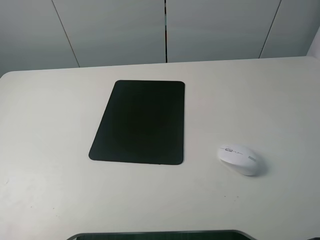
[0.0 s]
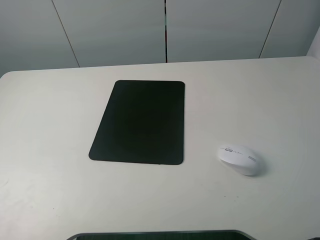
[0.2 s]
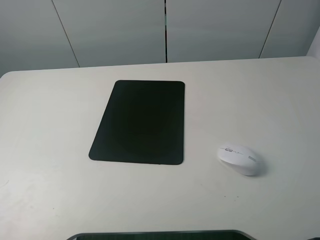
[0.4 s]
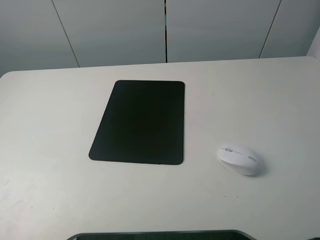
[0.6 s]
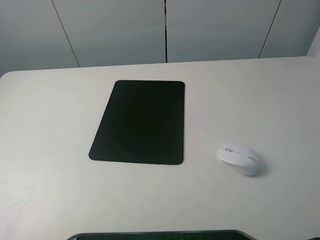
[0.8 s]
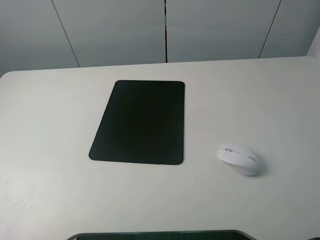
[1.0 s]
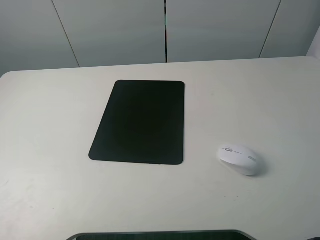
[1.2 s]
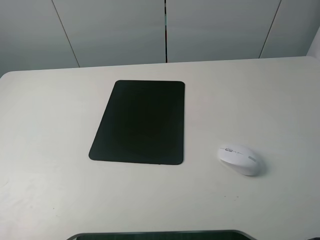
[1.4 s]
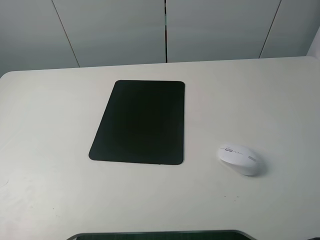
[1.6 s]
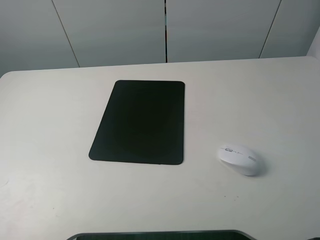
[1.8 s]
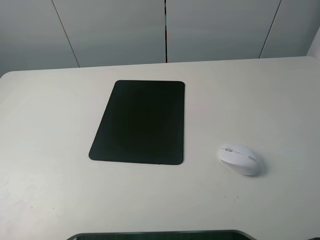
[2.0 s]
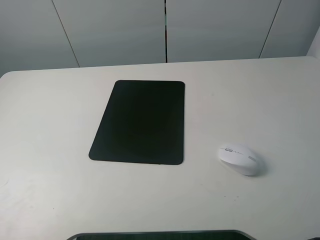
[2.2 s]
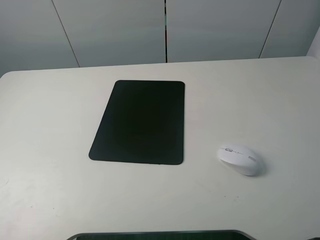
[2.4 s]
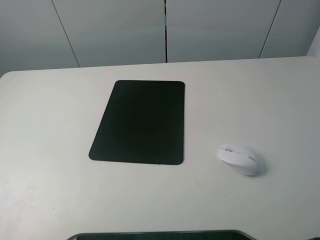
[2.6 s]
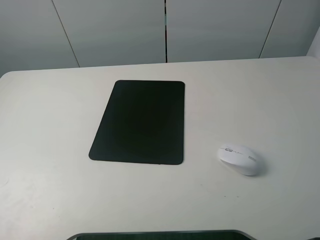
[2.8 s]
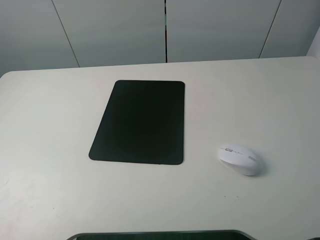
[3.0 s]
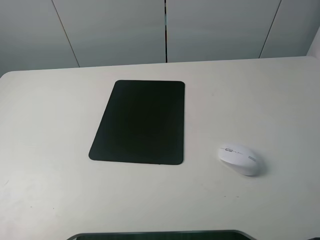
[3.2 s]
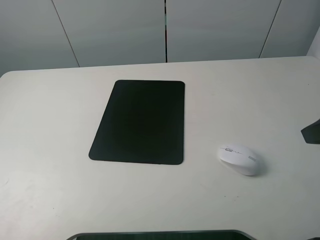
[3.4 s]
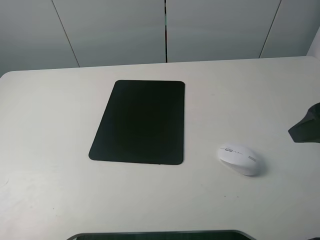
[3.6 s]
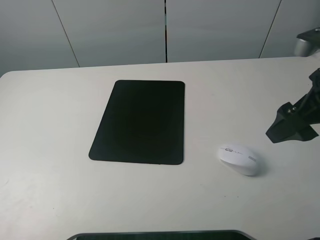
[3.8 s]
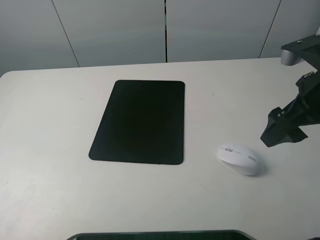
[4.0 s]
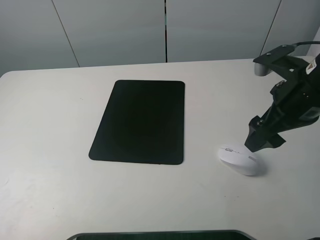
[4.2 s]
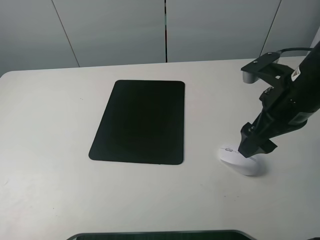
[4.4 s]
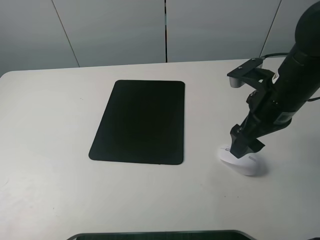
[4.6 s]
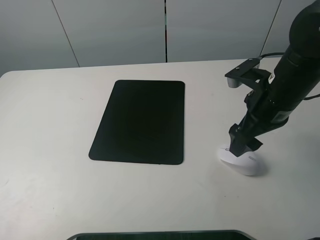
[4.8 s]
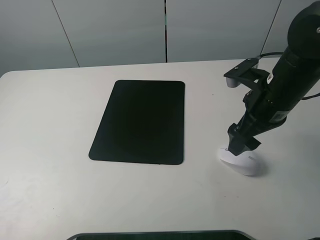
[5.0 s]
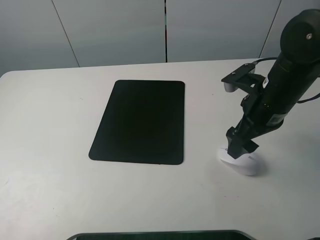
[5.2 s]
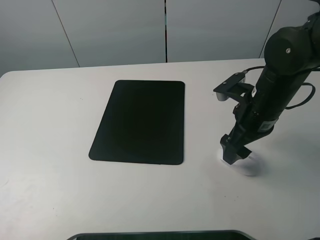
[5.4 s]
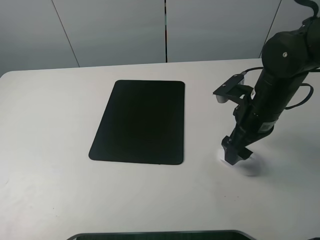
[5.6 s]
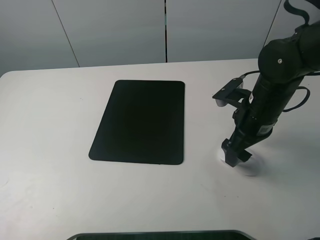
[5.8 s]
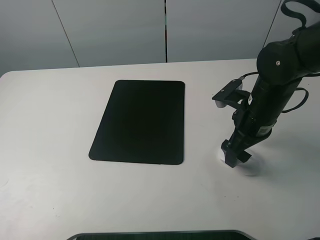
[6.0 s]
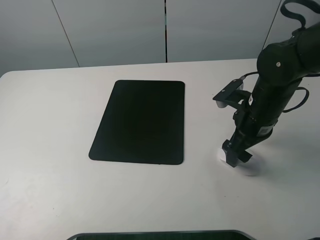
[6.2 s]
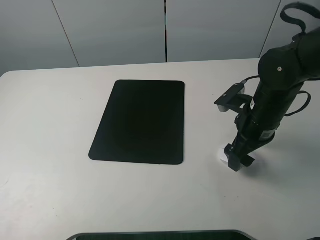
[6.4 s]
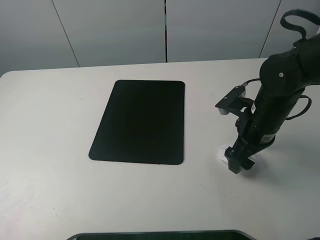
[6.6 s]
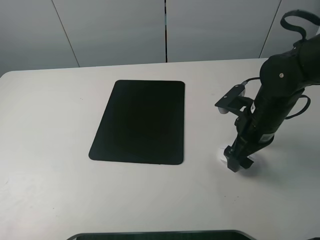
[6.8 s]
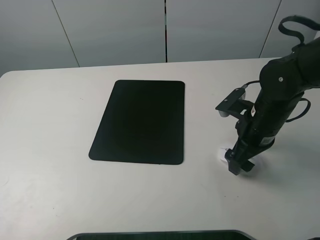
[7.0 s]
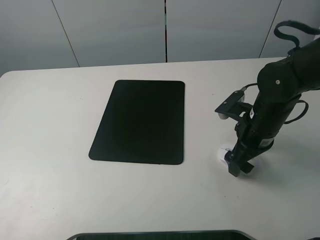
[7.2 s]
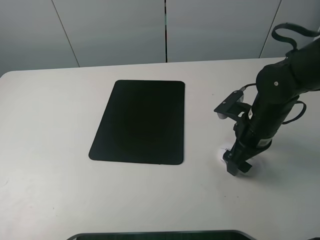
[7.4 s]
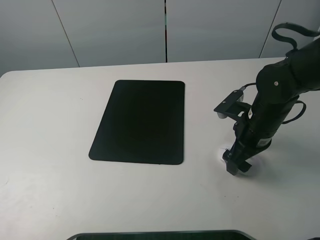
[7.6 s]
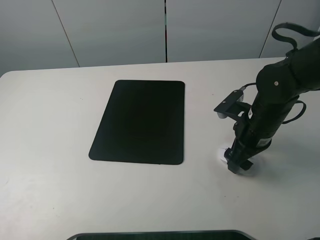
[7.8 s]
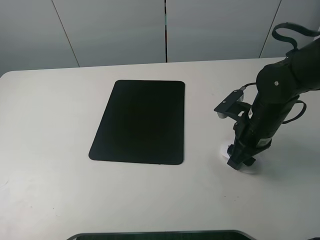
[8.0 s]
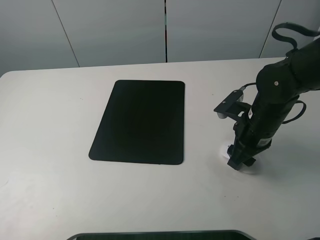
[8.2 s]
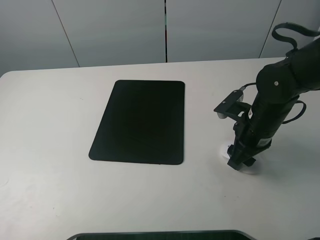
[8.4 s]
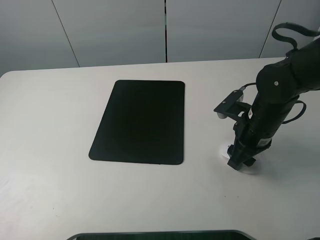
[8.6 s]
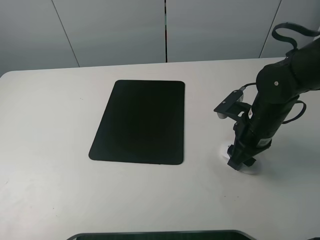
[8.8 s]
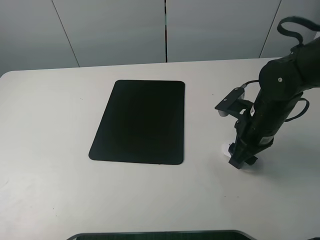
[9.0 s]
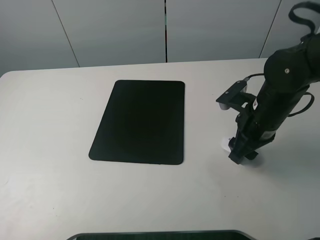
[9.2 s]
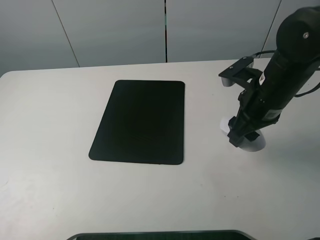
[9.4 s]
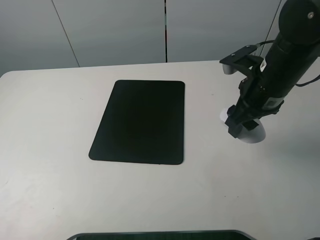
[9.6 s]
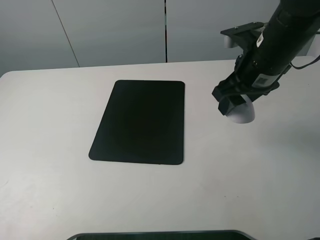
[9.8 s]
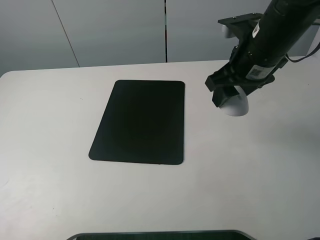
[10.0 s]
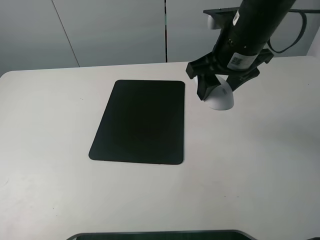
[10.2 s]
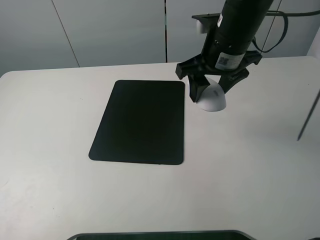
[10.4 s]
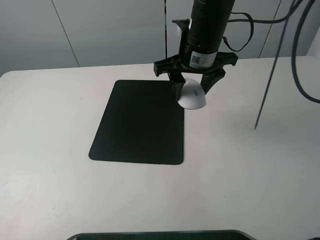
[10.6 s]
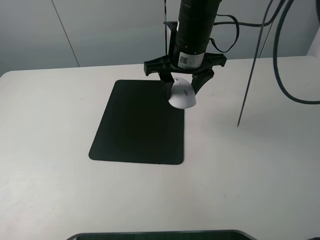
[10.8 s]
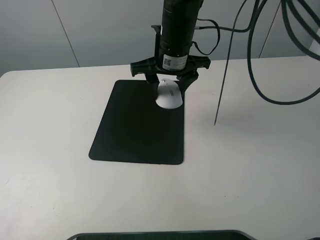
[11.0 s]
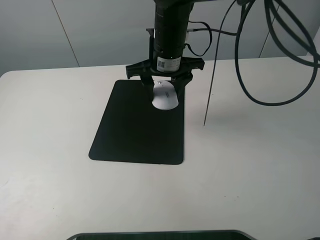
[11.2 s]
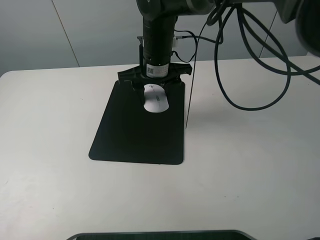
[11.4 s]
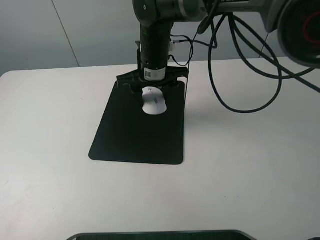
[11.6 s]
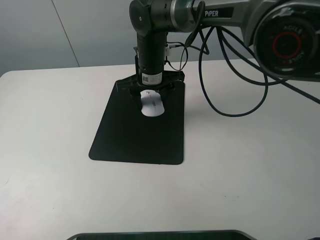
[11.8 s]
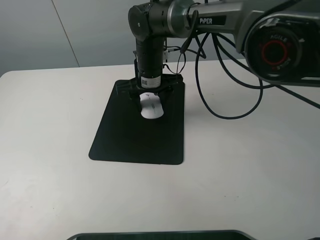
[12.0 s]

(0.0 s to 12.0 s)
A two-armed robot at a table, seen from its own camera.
Step, 0.0 s - 8.8 s: Grasp the mouse with the right gripper.
0.0 s - 1.6 s: Both grippers stay put.
3.0 s - 4.4 s: The right gripper heads forward, to the left and downward, covering some 20 cm.
4.4 s - 6.0 s: The right gripper is displaced downward by approximately 5 cm.
6.0 s - 7.6 s: There are only small adjustments of the grippers.
7.6 s - 9.0 s: The right gripper closes.
9.0 s - 10.4 s: The right gripper travels upward, to the left and forward by some 15 cm.
10.4 s - 12.0 s: The right gripper goes roughly 20 cm to the left, downward and forward.

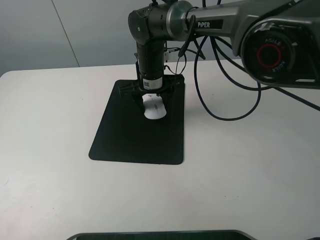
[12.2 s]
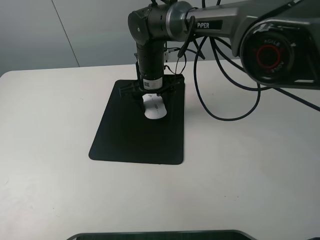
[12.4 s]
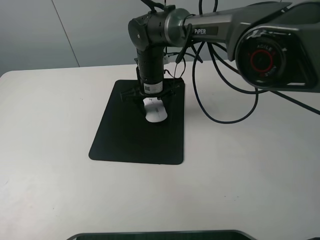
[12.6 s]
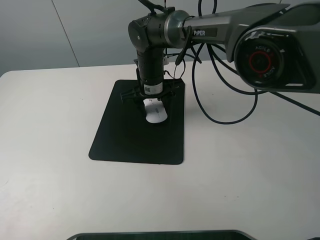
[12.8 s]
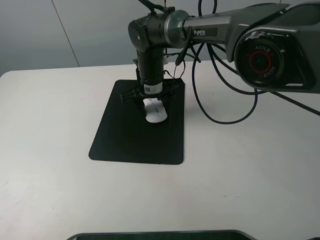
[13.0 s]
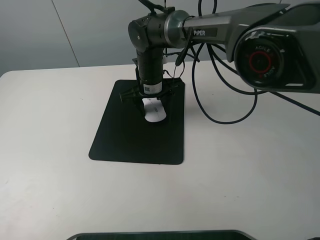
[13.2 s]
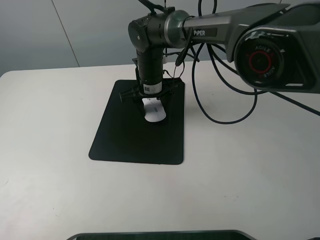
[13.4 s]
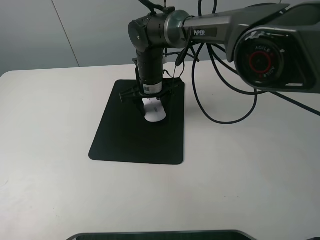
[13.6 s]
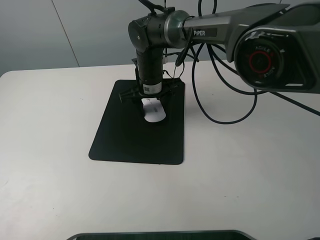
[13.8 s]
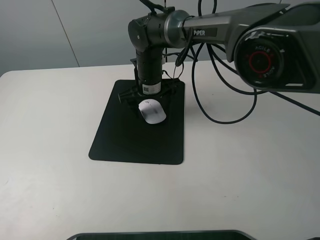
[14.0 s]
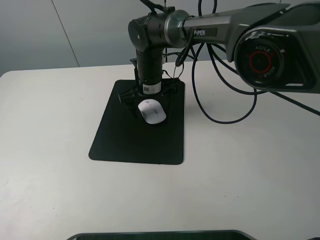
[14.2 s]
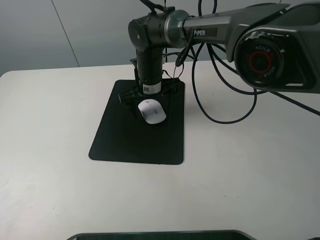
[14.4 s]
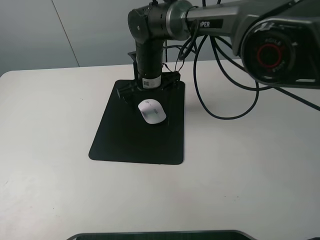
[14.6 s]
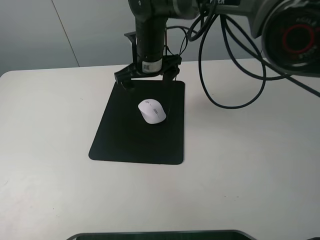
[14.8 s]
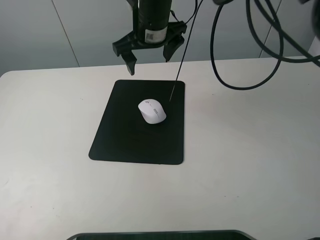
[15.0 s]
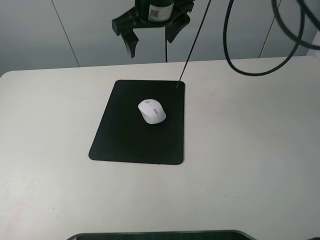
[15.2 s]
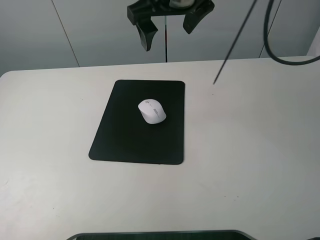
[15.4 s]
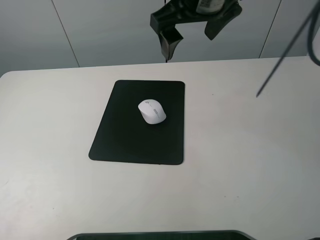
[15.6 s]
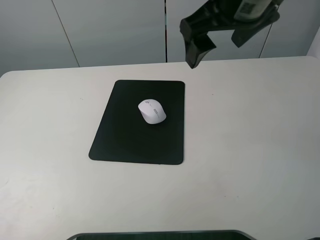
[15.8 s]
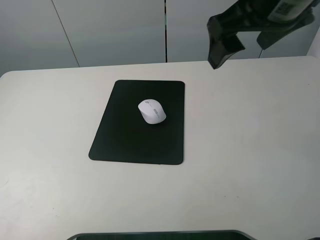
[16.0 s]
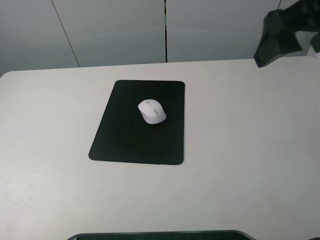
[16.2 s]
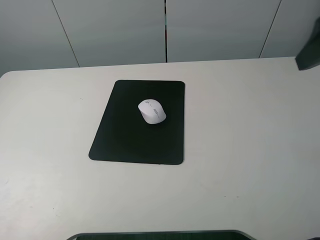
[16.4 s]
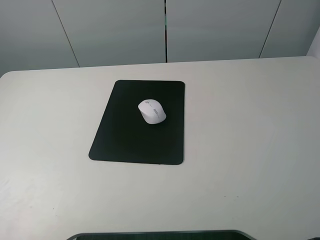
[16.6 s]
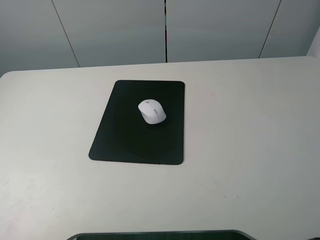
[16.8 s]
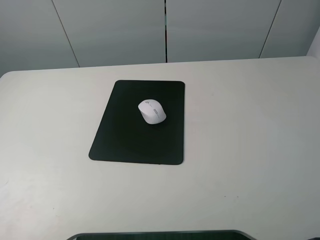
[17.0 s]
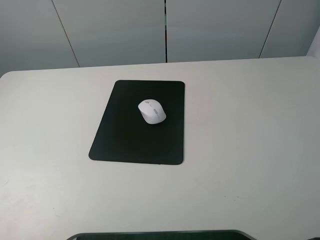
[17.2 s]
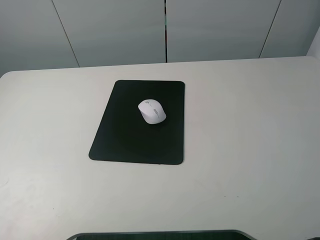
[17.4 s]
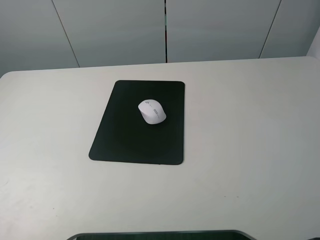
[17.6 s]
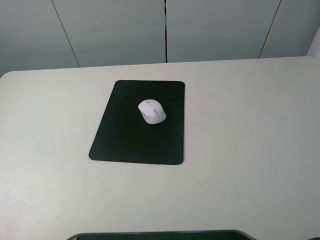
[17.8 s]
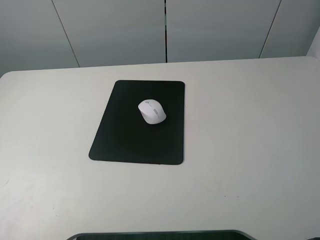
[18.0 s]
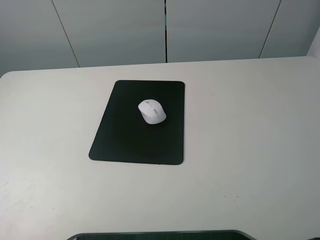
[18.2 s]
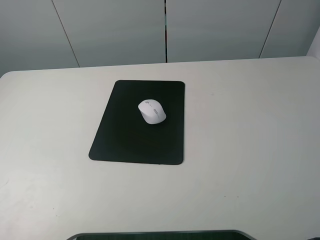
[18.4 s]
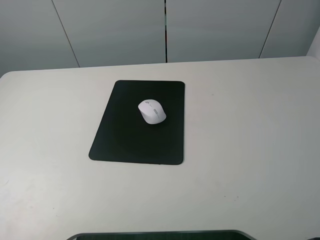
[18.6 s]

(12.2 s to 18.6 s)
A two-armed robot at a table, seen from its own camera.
12.2 s - 13.8 s: The grippers make only small movements.
13.8 s - 15.4 s: The right gripper goes about 20 cm upward, and opens its fingers.
15.4 s - 17.0 s: The right gripper heads backward and to the right, covering roughly 40 cm.
